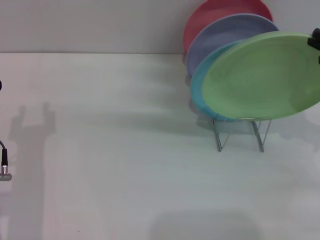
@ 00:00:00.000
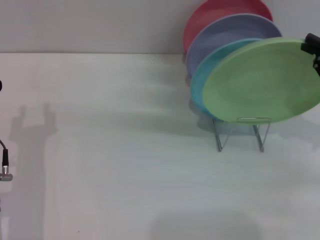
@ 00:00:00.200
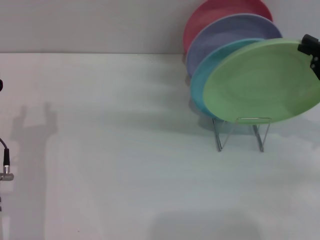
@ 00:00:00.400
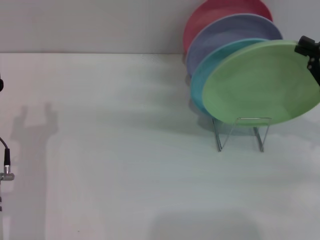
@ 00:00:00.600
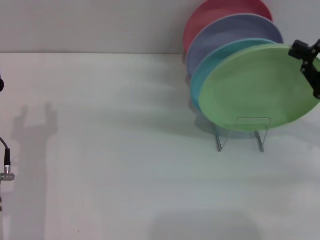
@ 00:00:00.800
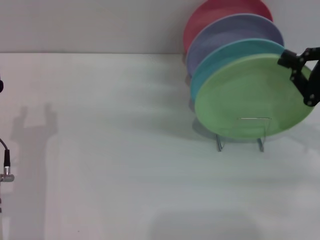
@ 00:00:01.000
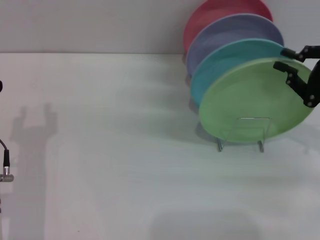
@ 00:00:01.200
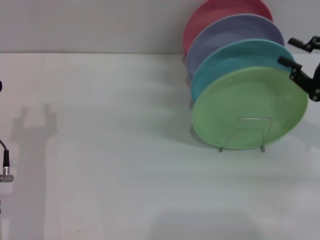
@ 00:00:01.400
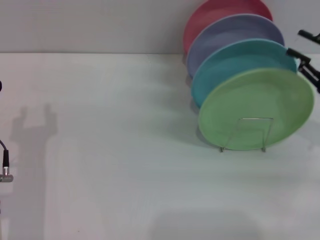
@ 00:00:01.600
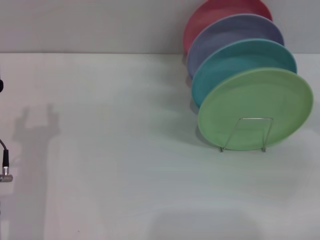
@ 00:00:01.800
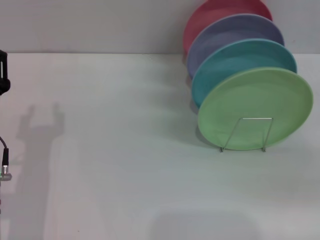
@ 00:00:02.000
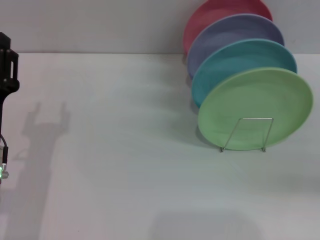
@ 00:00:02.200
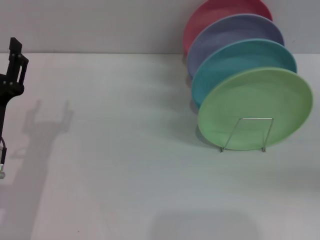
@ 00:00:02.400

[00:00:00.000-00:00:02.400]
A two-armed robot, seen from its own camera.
Task of the whole recording: Grip the plate with one hand, pass it to the other, then set it on the shelf.
00:00:00.000 to 00:00:01.200: The grippers stay close to where they were, moving slightly.
00:00:01.200 to 00:00:02.400: The right gripper moves to the right, some 10 cm, and opens.
